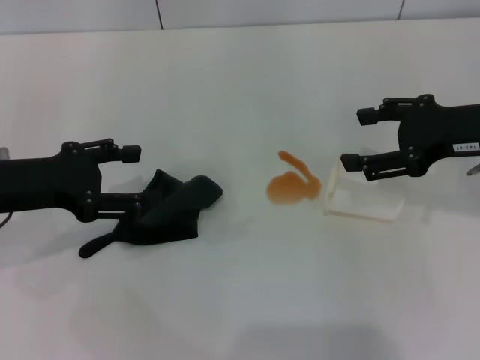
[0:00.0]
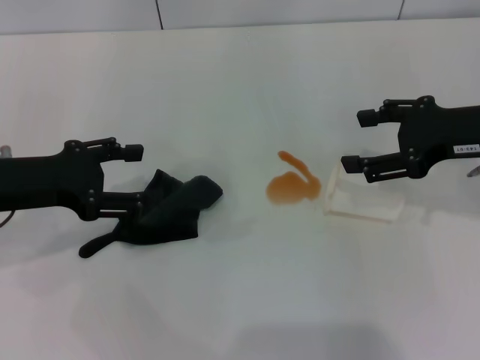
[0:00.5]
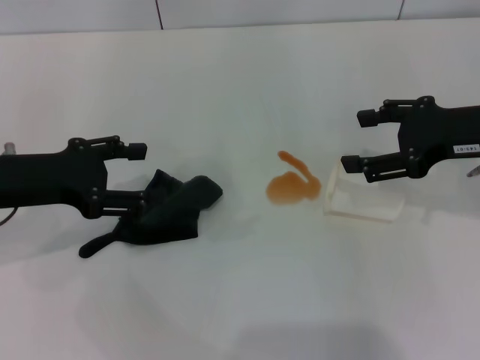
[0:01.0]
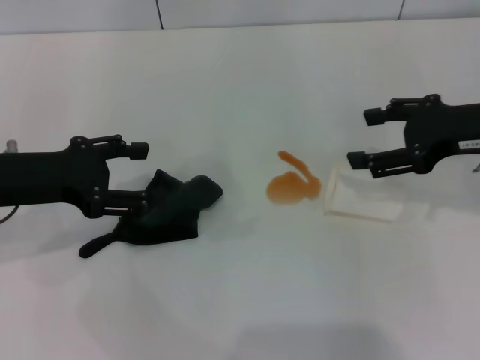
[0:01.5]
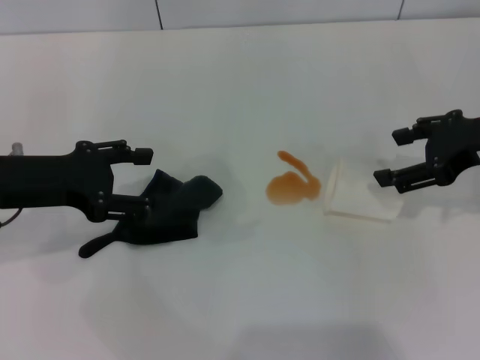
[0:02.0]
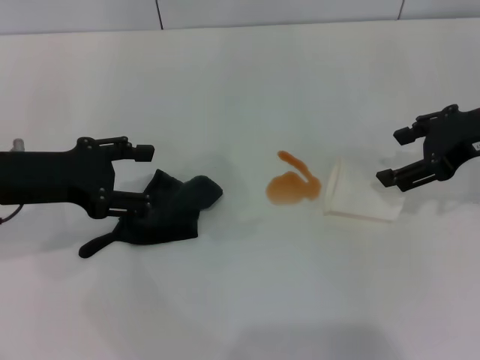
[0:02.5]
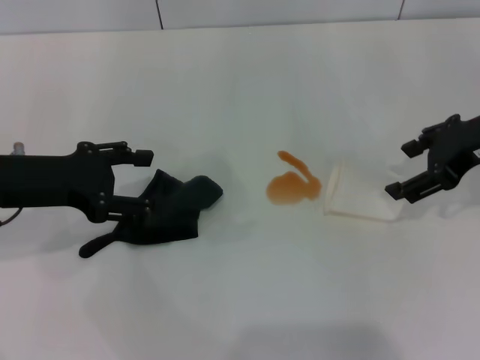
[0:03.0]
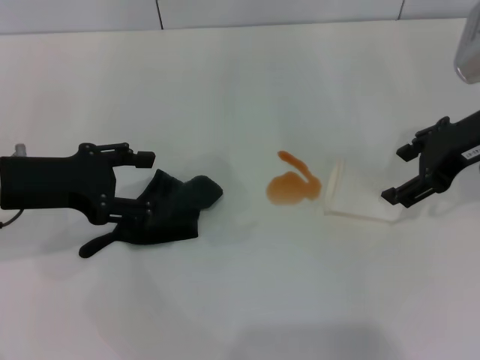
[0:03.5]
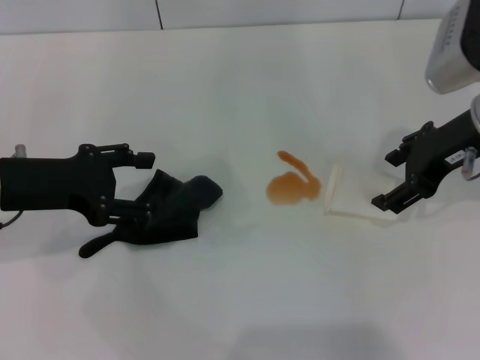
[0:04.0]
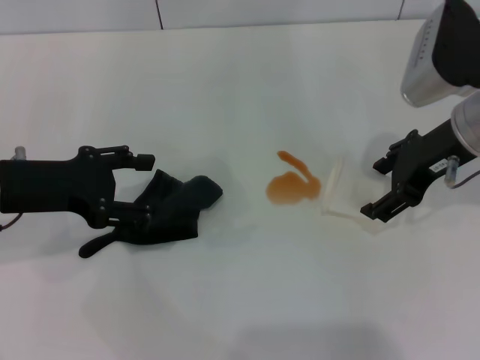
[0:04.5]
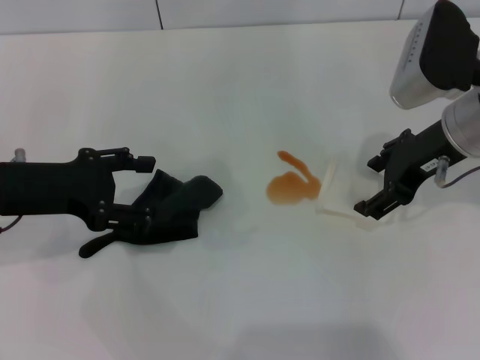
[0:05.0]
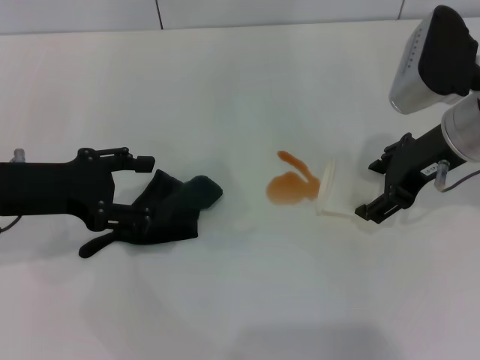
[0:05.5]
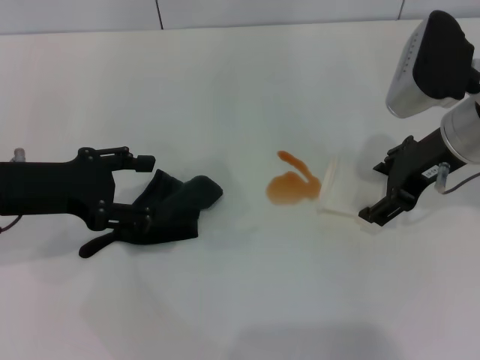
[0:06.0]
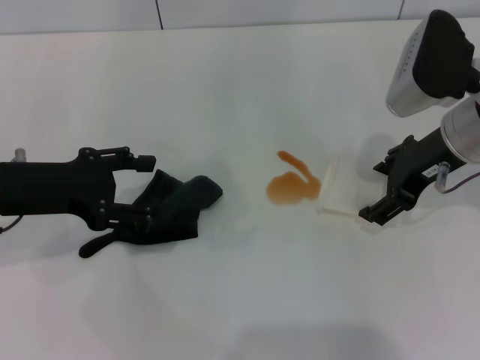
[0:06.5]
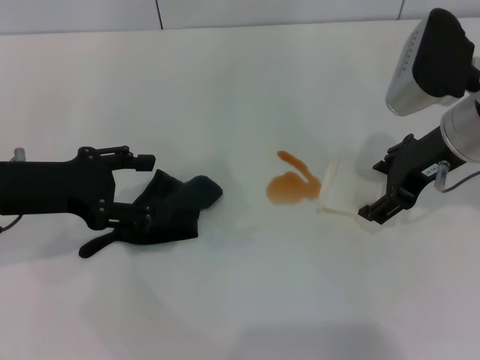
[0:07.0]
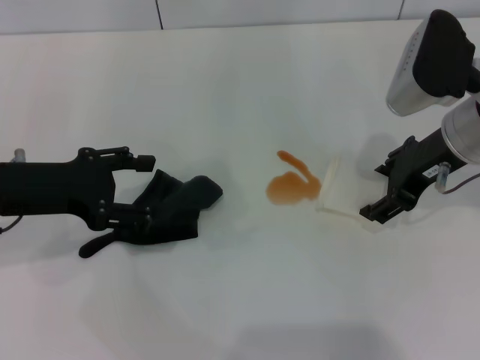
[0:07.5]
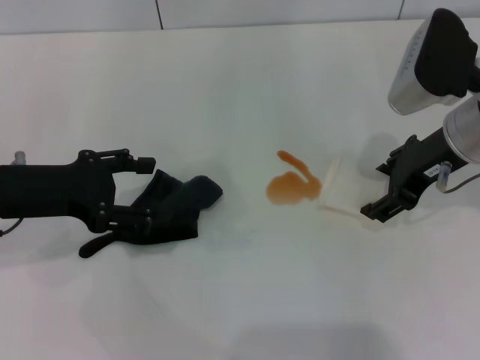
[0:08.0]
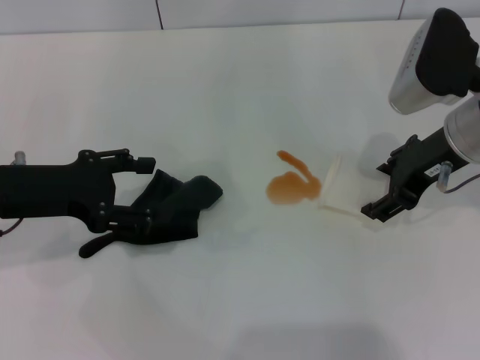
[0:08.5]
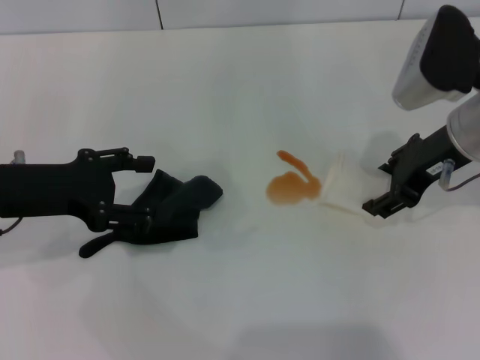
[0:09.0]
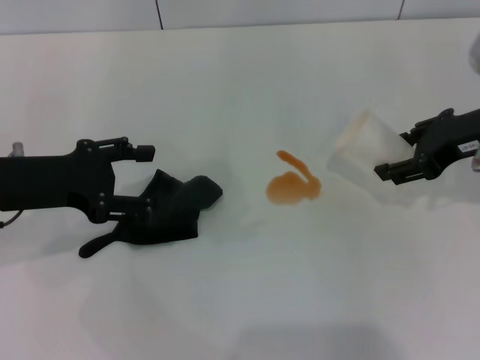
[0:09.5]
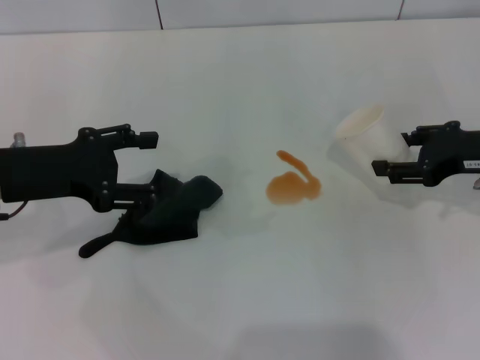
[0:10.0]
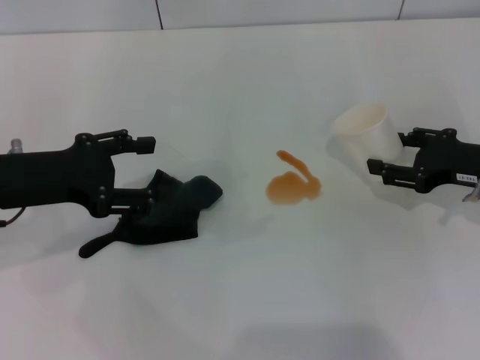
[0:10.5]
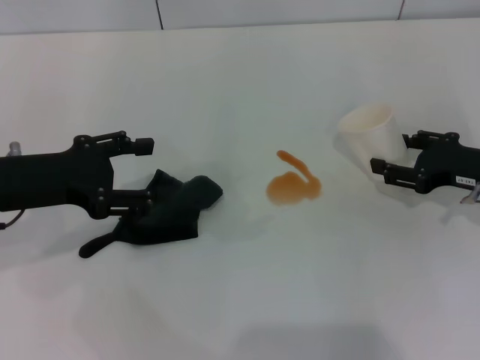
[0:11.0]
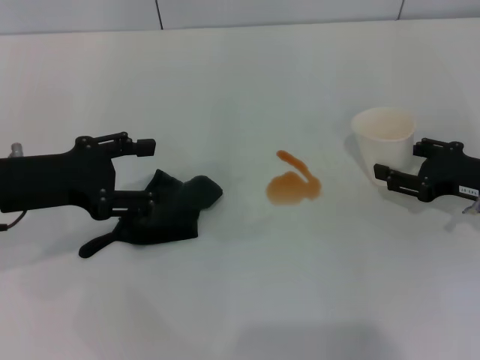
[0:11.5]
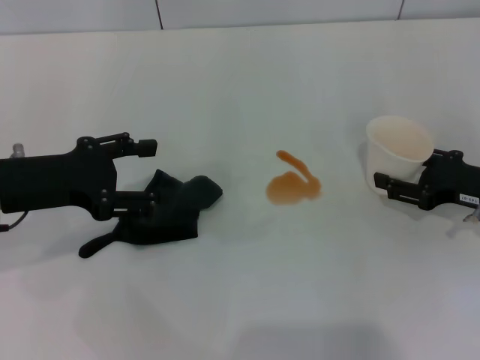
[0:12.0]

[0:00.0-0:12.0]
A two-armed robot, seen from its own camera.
Step, 0.0 to 8.5 s: Grasp the paper cup with the right gripper.
0.0 to 2.0 s: The grippers stay close to where they were, moving slightly.
2.0 to 4.0 s: The right gripper goes some 5 cm to the left.
4.0 to 6.0 s: There are only small adjustments of the grippers.
6.0 to 8.0 s: The right gripper closes.
8.0 to 10.0 s: The right gripper travels to the right by roughly 10 cm, and closes up.
10.0 to 12.0 s: The right gripper goes about 5 cm downward.

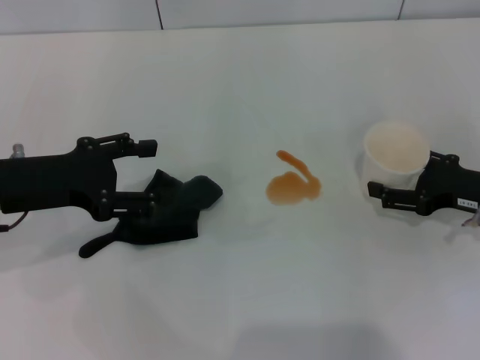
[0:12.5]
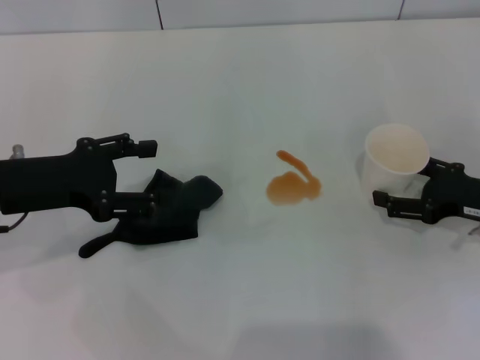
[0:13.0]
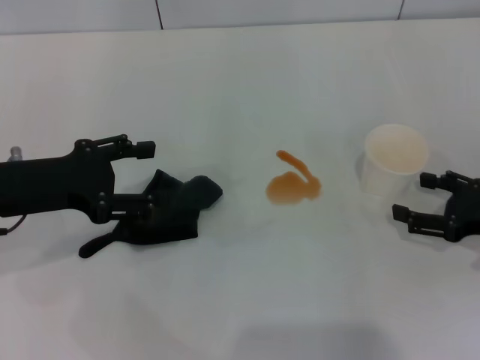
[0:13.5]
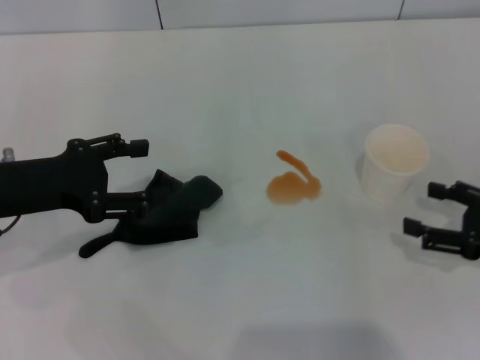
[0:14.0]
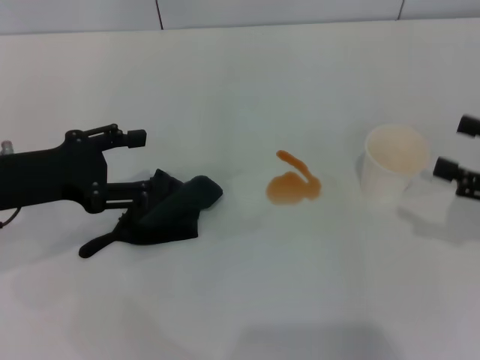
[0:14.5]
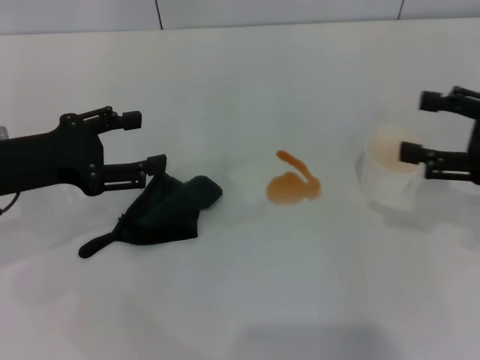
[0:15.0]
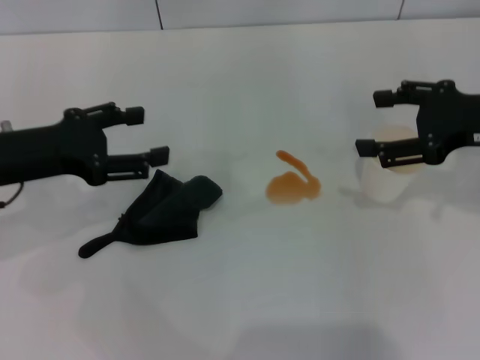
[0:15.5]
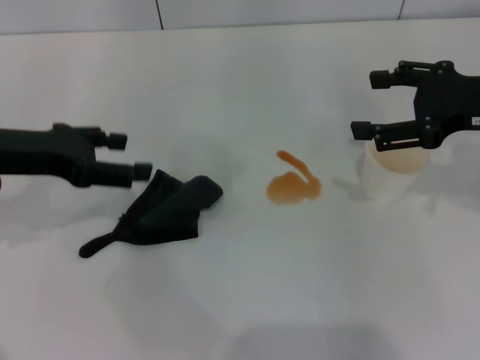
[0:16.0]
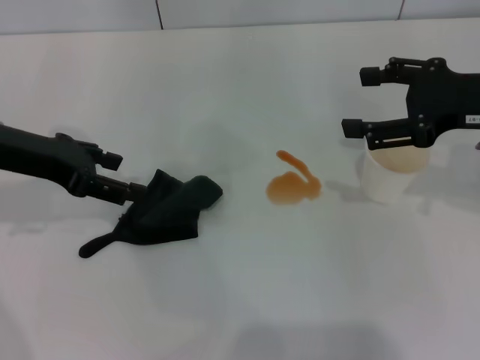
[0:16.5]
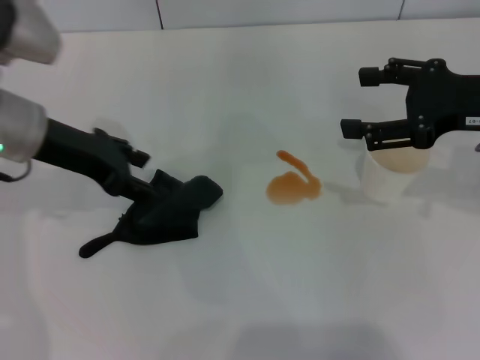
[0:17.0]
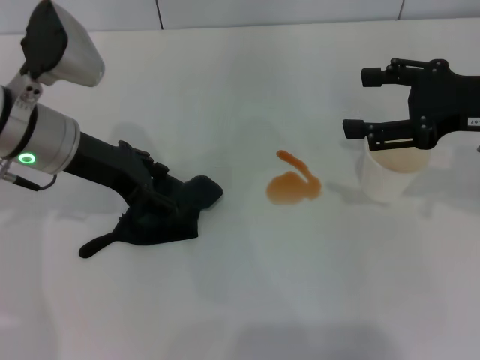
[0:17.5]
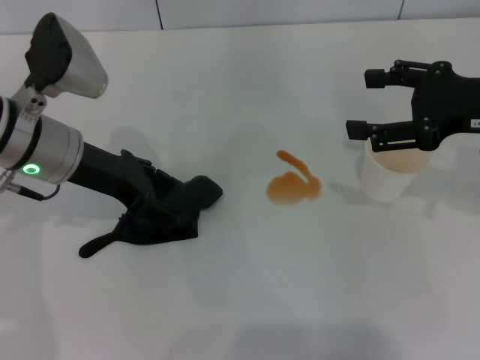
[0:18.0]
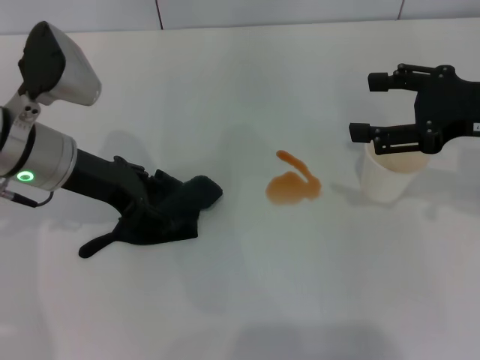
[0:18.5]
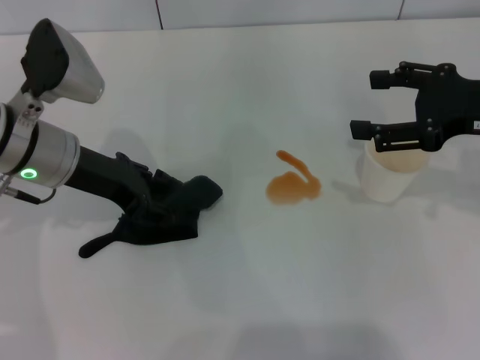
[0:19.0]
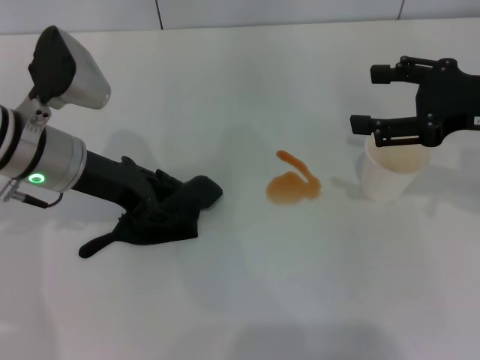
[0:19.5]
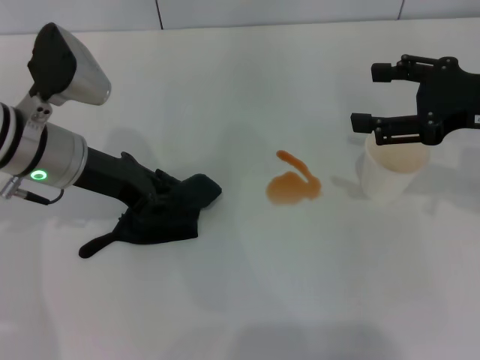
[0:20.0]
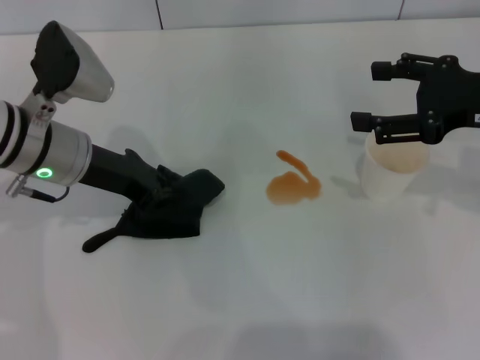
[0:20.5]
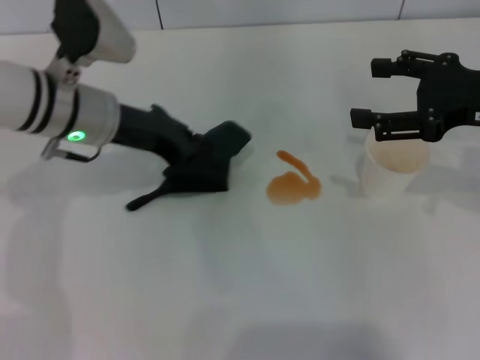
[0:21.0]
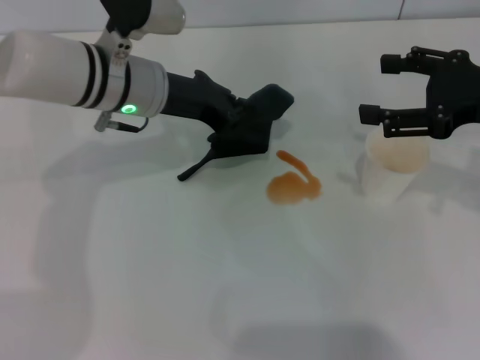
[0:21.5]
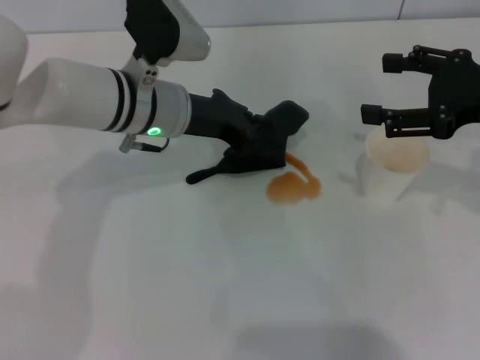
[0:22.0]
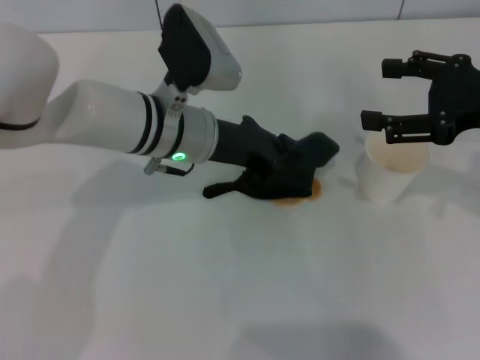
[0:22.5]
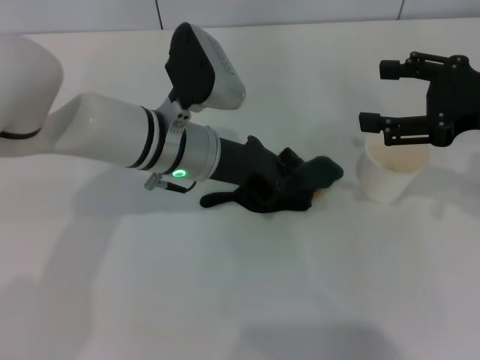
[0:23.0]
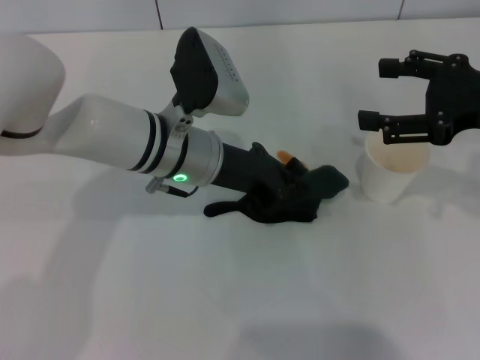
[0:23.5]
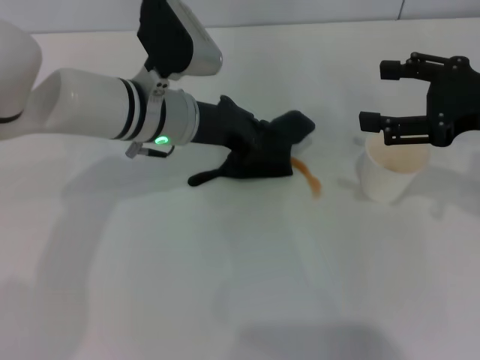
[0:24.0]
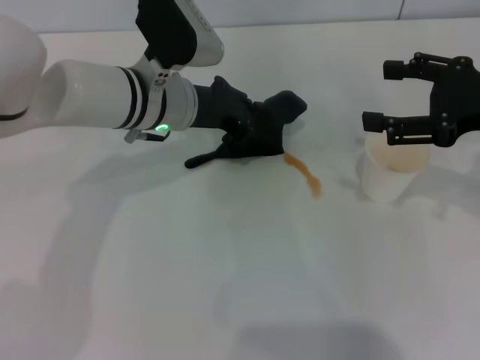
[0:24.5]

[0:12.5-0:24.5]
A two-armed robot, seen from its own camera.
Step, 14.0 to 20.0 s: Grasp the rag with the left gripper.
12.5 to 14.5 s: The right gripper shifts approximately 10 cm backward and upward, and opens up.
14.5 to 16.5 s: The left gripper travels forward by approximately 5 cm, while the right gripper moves forward, to the left and upward, some 15 cm.
16.5 to 18.5 s: The left gripper shifts approximately 5 cm to the right.
18.5 to 20.5 s: The left gripper closes.
20.5 to 22.5 s: The left gripper shifts roughly 10 cm to the right.
22.5 to 24.5 s: There are only small adjustments of the grippers.

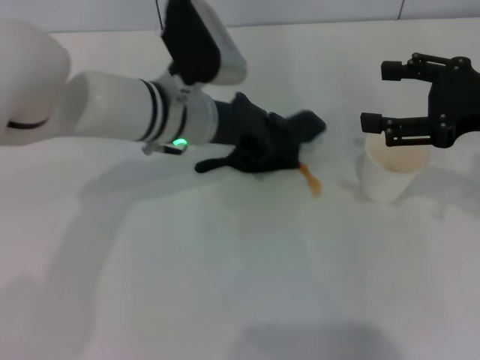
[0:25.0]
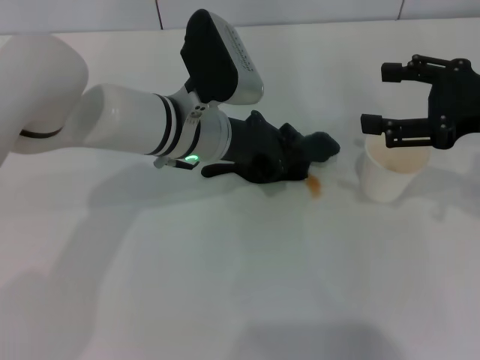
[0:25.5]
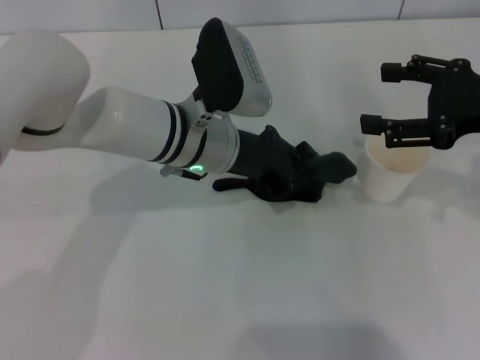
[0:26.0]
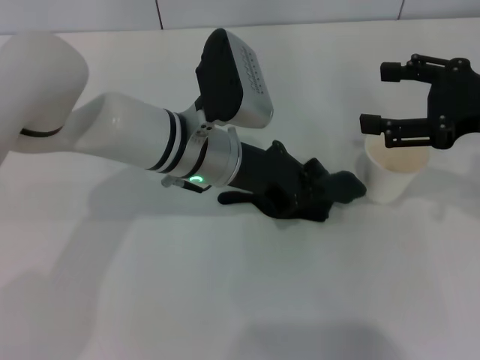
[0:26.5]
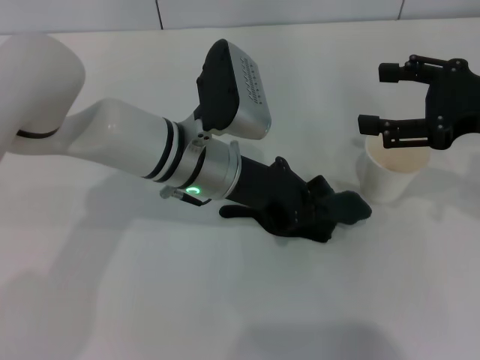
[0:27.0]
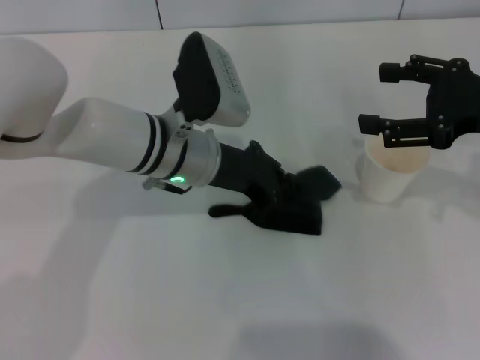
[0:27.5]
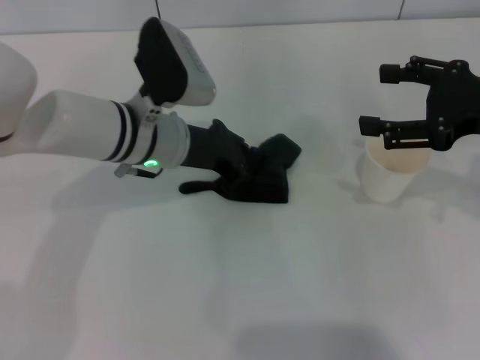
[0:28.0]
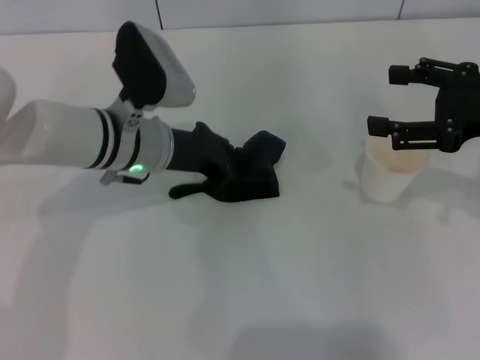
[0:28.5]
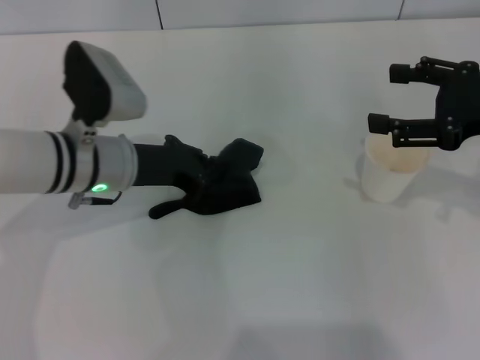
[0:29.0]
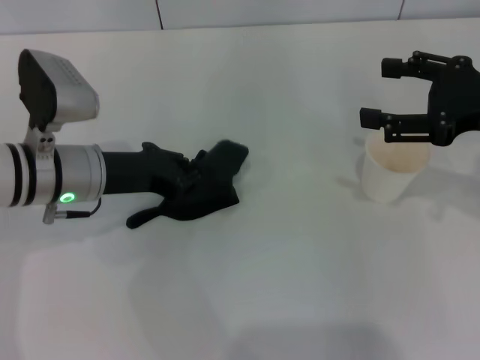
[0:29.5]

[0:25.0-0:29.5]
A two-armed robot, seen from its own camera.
Step, 25.0 to 29.0 s: Wipe the stains off the table with the left gripper.
25.0 to 27.0 s: The grippers move only a little.
27.0 to 29.5 s: The left gripper is displaced to the left by about 15 cm.
